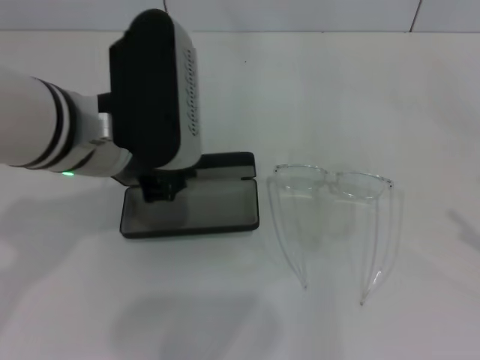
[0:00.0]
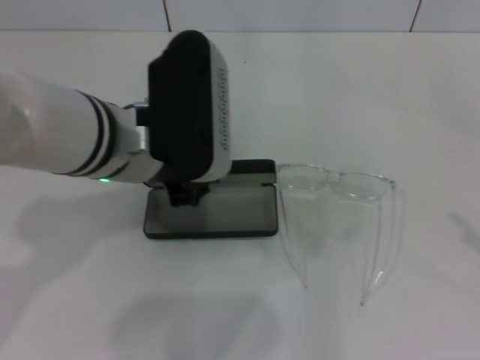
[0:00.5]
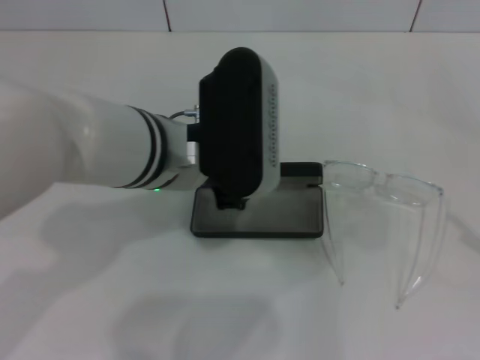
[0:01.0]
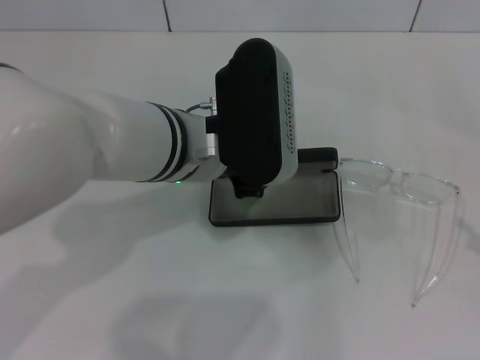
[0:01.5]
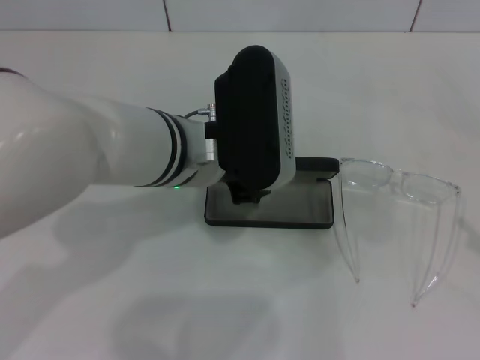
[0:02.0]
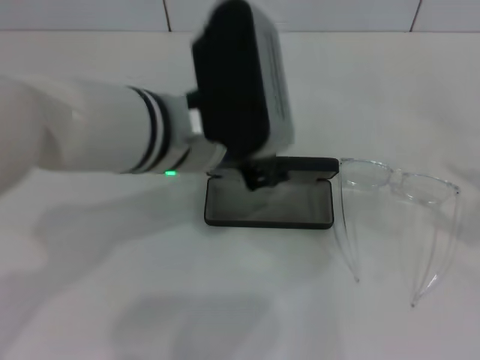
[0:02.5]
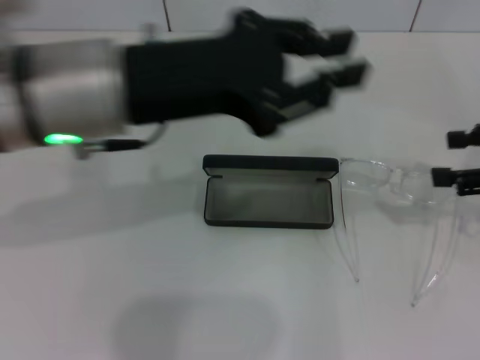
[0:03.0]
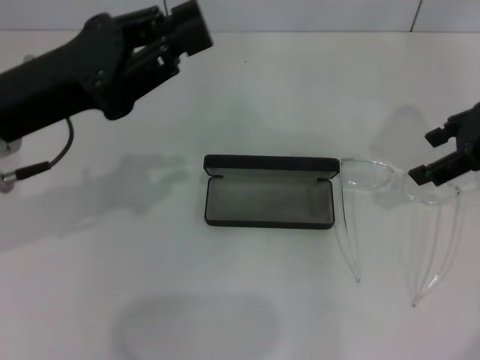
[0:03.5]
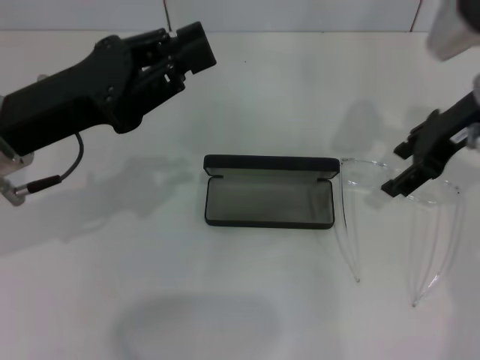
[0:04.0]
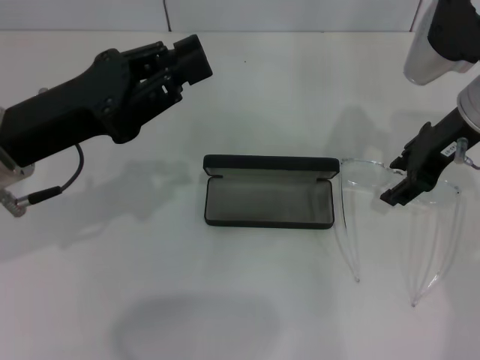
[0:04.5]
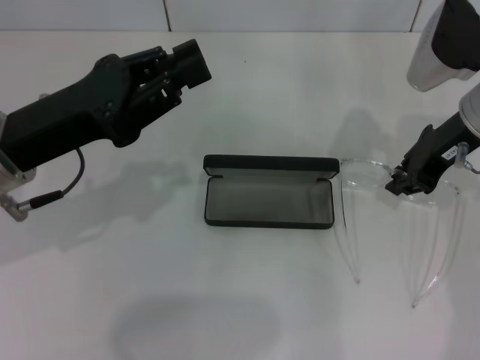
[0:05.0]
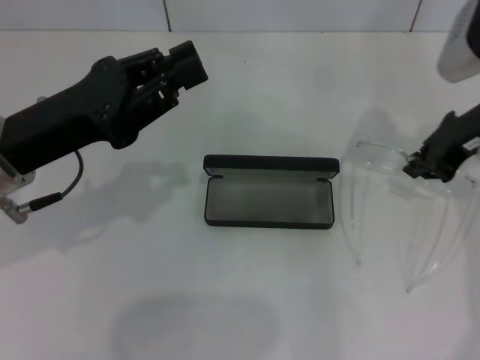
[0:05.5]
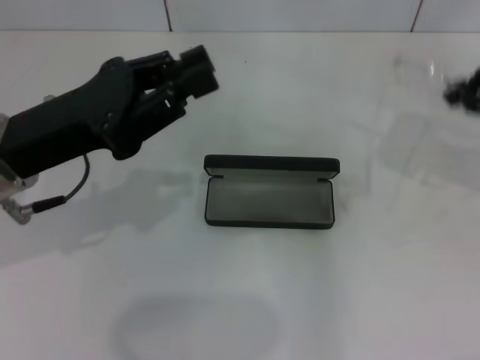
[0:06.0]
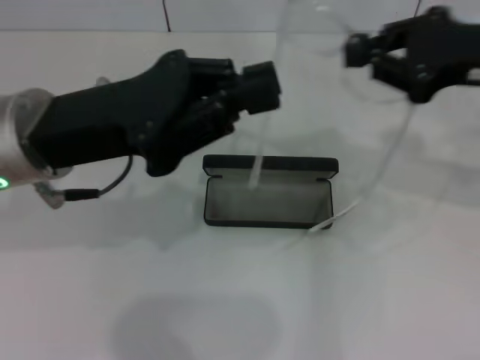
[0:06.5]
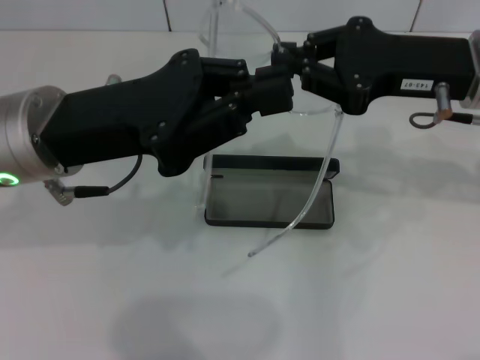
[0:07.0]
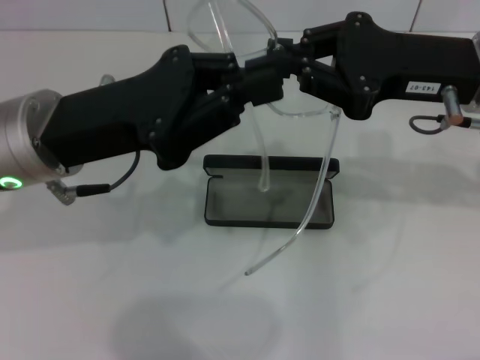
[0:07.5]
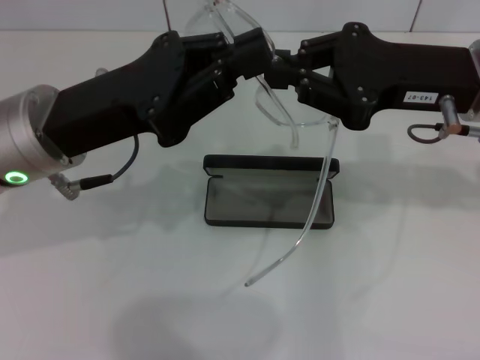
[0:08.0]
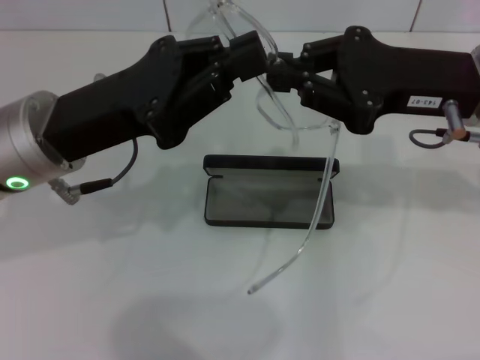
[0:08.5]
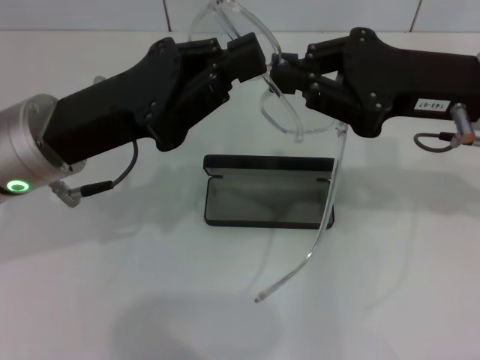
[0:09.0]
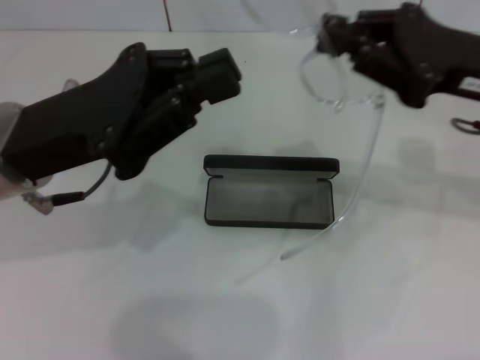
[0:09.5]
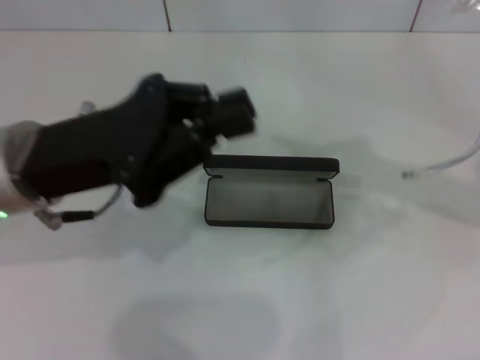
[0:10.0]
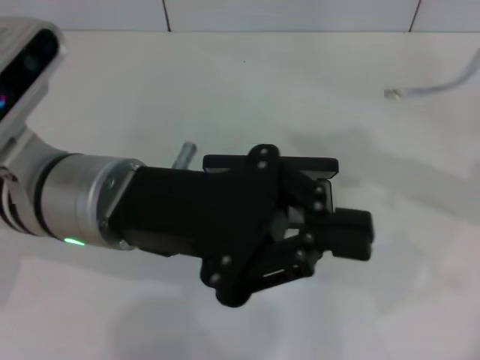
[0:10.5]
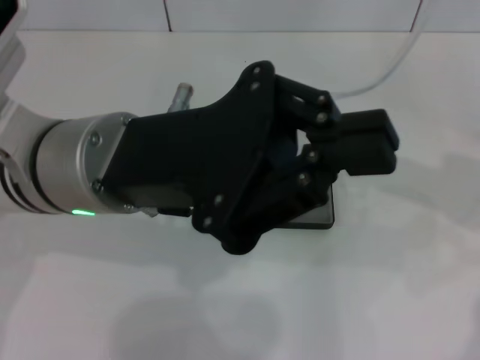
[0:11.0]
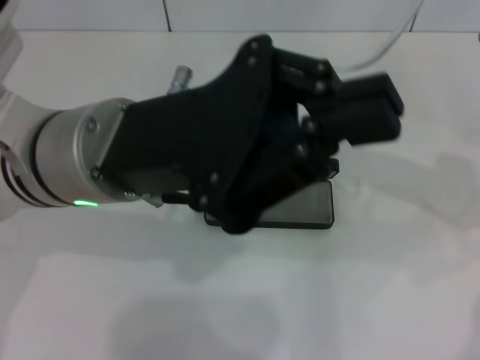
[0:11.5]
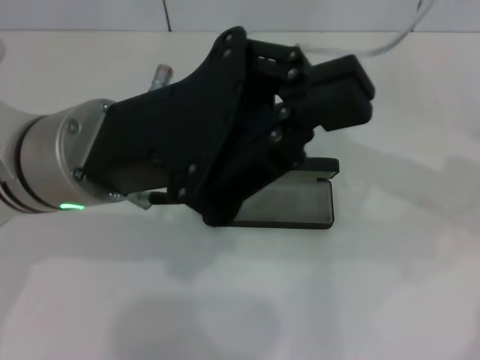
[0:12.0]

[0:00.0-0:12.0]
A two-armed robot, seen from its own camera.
Step, 0:00.0 to 0:02.0: Place the glasses case in the center of the table with your left hand.
Step, 0:02.5 to 0:05.0: Grab the eyeglass frame with your right hand.
0:00.0 to 0:02.0: The left gripper is displaced to the right by roughly 5 cm.
0:02.0 to 0:04.0: The right gripper travels forward and to the left by approximately 30 cm, while the left gripper travels to the left by roughly 15 cm.
0:04.0 to 0:06.0: The right gripper goes about 10 cm to the right, upward and backward, and closes.
0:06.0 to 0:08.0: The right gripper heads to the left, covering some 10 cm.
0:08.0 to 0:10.0: The right gripper moves to the right, about 10 cm.
0:10.0 to 0:12.0: The left gripper travels to the right by roughly 5 cm. The right gripper ends up some 5 cm from where it was.

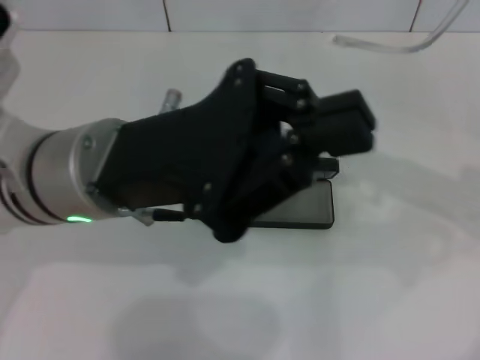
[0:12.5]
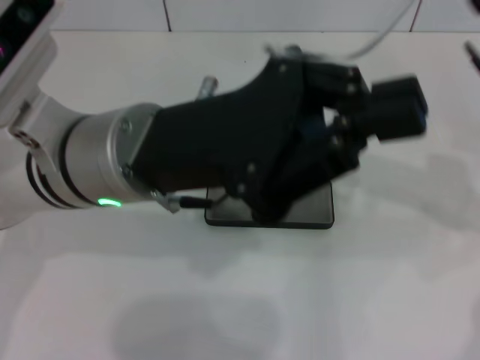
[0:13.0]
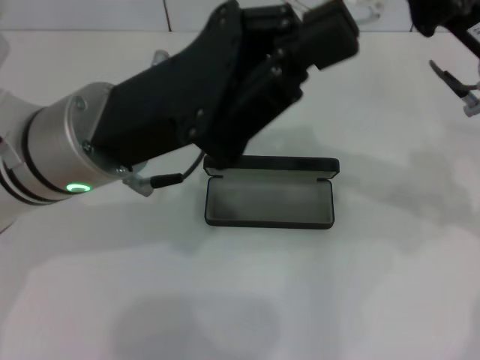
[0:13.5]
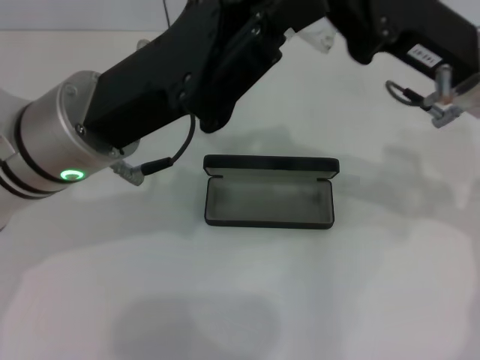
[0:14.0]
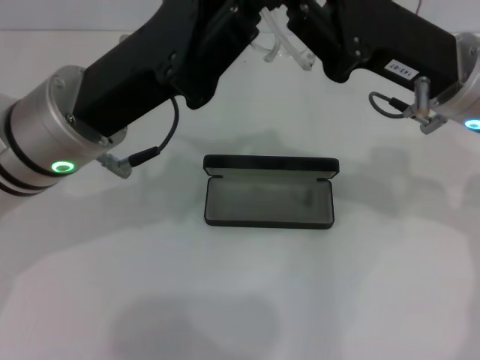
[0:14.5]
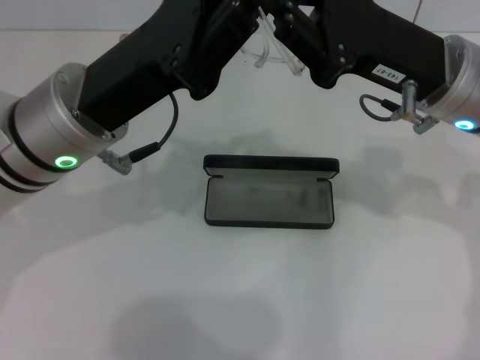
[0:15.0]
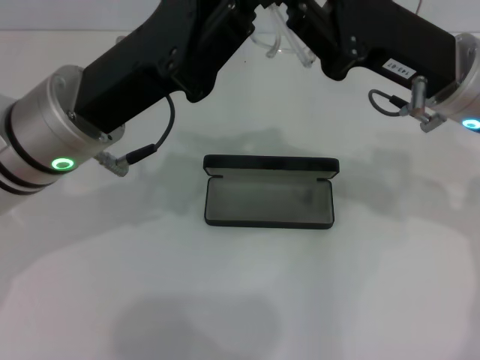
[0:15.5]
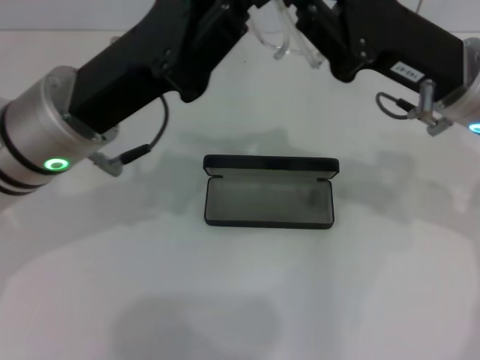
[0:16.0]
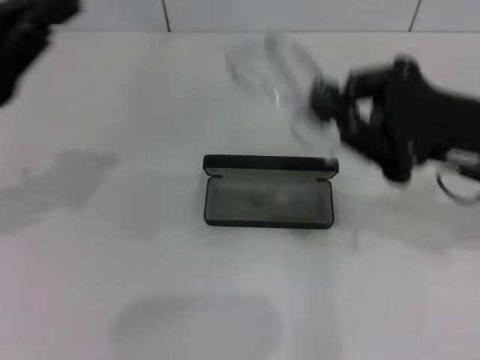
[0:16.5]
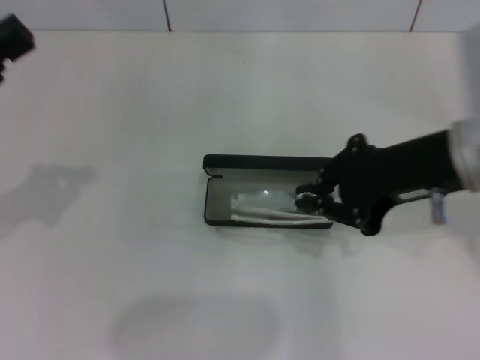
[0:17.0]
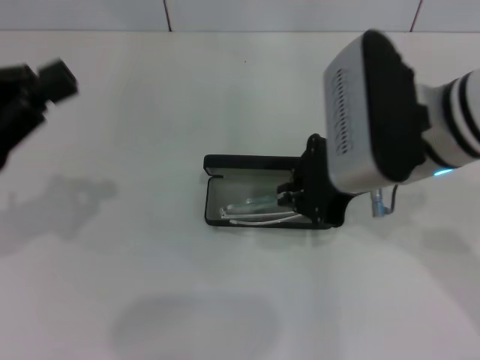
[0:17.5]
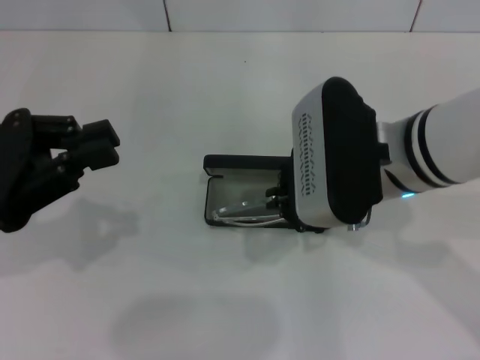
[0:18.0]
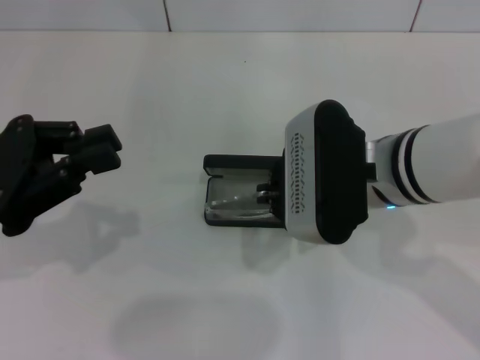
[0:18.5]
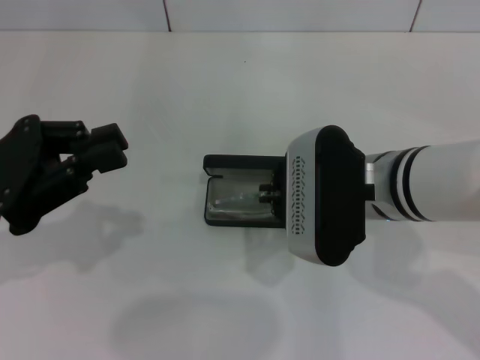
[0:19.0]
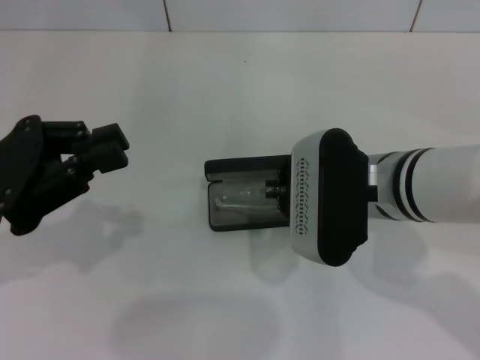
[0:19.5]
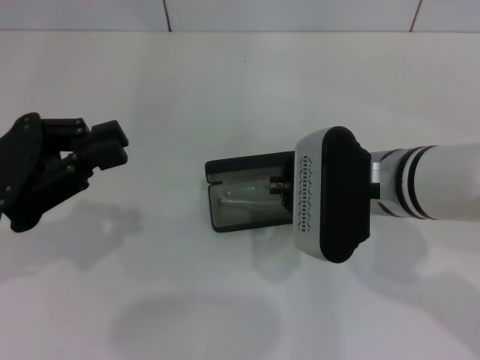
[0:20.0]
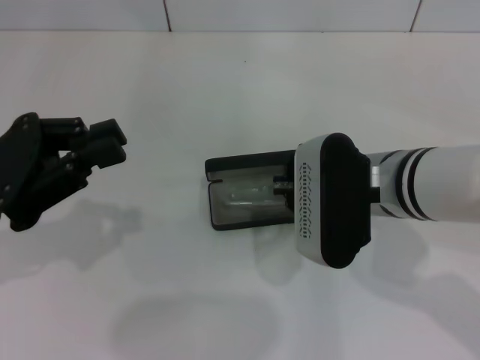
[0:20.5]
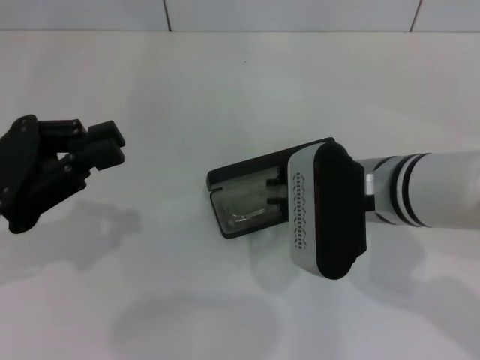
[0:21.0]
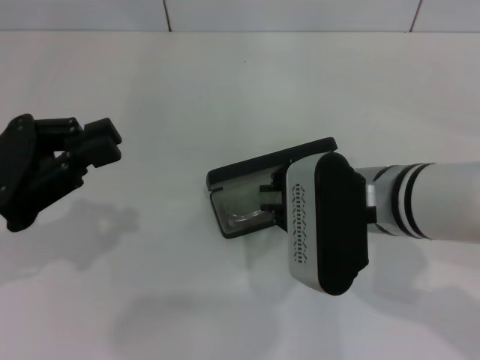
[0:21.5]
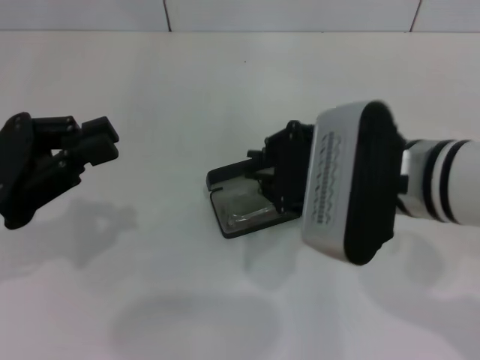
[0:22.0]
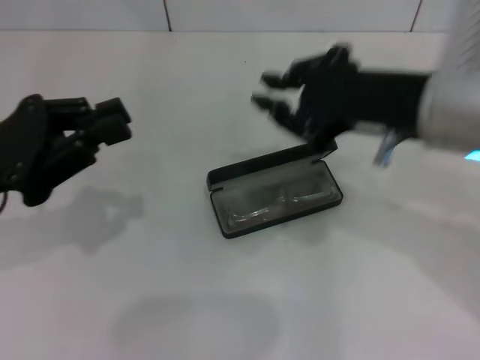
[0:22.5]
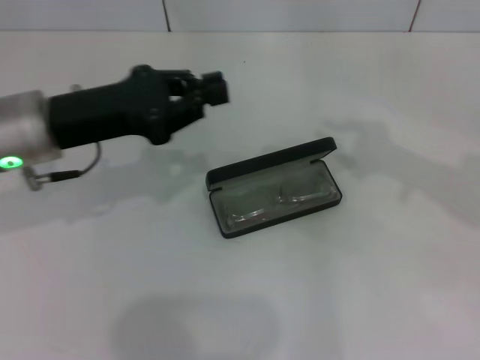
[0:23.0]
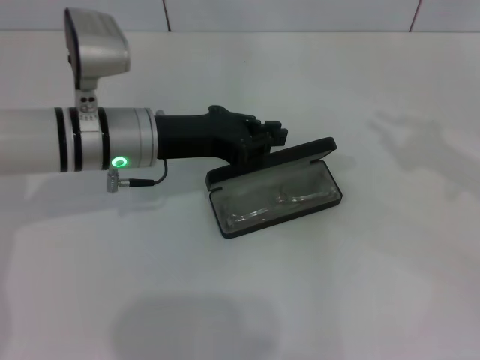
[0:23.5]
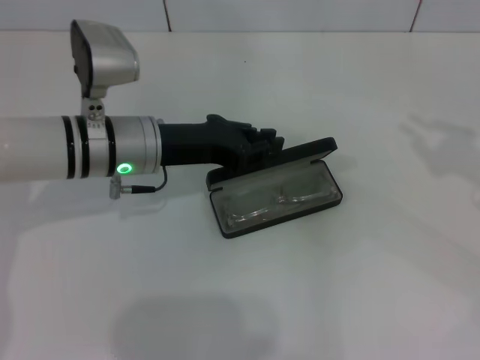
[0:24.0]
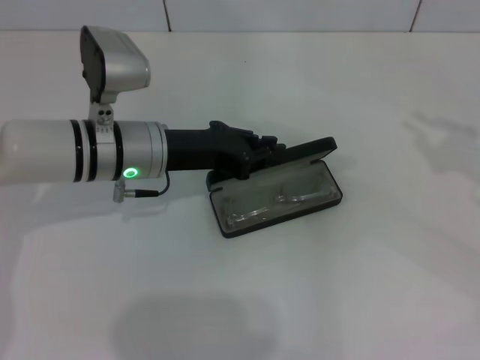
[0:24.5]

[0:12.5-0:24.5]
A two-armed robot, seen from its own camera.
Step, 0:14.5 to 0:21.0: Put the glasses into the case with your right hand.
0:12.5 to 0:14.5: The right gripper moves to the left, approximately 5 cm.
0:14.5 to 0:16.5: The right gripper heads to the right, covering some 5 cm, while the left gripper goes approximately 15 cm to the left.
0:16.5 to 0:18.5: The right gripper moves to the left, about 10 cm.
0:18.5 to 0:20.5: The grippers move only a little.
0:20.5 to 0:22.5: The right gripper goes approximately 10 cm upward.
0:22.5 to 0:24.5: The left gripper is displaced to the right, forward and downward by approximately 20 cm. Meanwhile the right gripper shifts roughly 20 cm to the right.

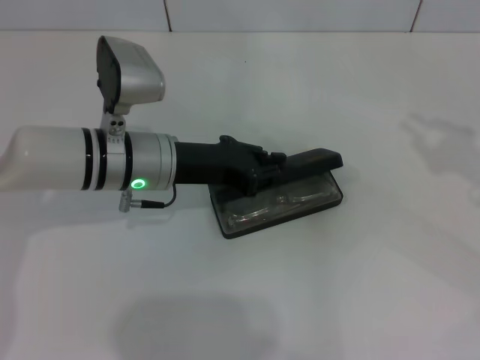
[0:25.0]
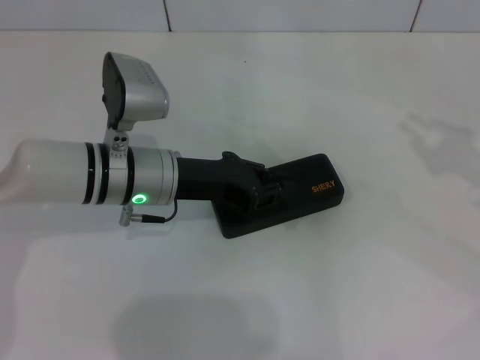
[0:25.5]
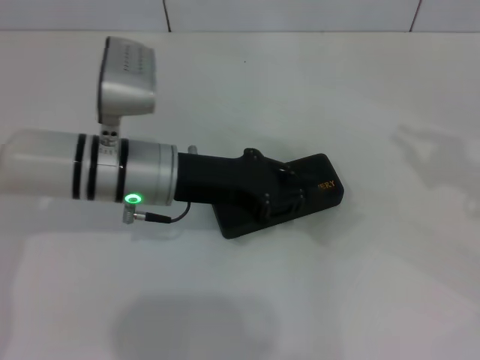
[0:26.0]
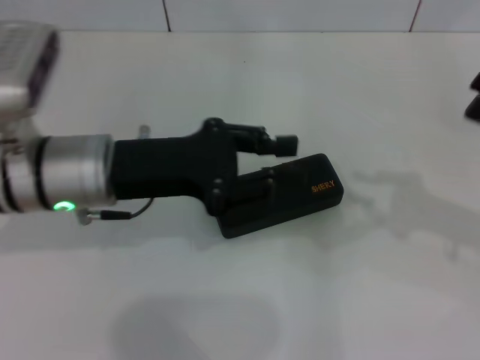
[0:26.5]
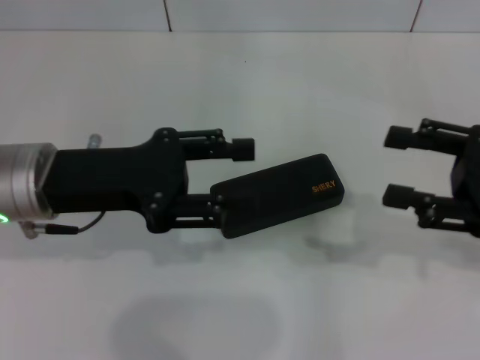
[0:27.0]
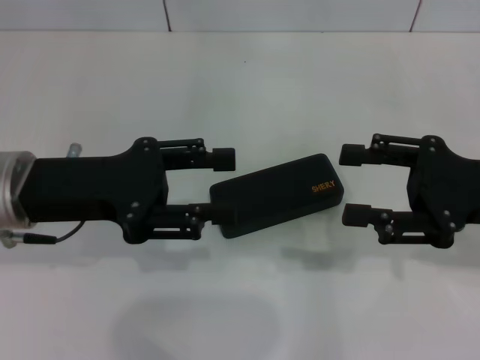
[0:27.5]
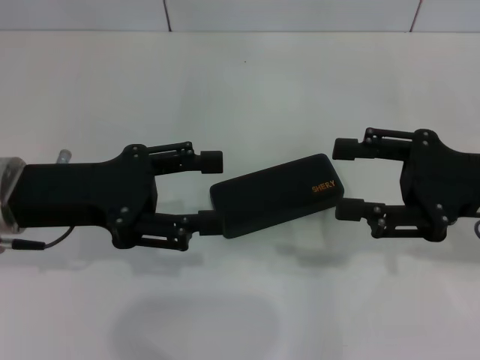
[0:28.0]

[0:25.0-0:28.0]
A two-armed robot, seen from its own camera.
0:25.0 to 0:26.5: The left gripper heads upward and backward, covering roughly 5 cm, while the right gripper changes place by roughly 5 cm.
0:26.5 to 0:28.0: The grippers both shift to the left by roughly 5 cm. The left gripper opens its fingers. The right gripper opens up.
